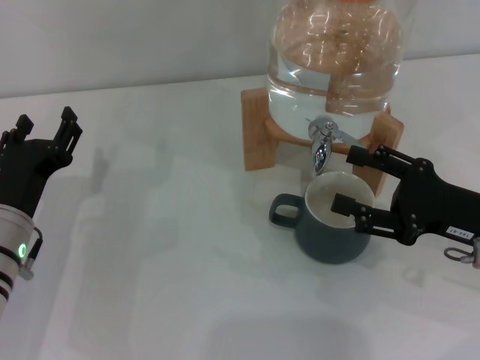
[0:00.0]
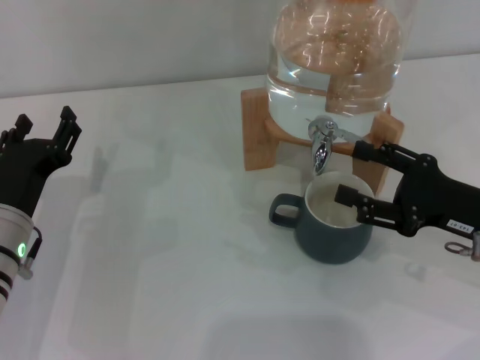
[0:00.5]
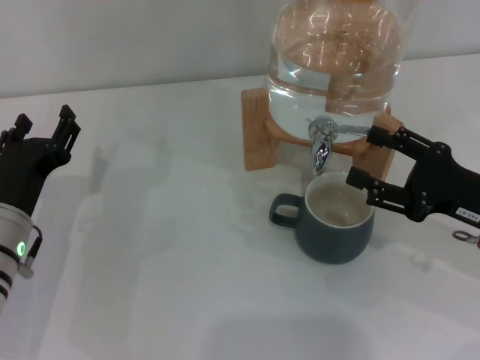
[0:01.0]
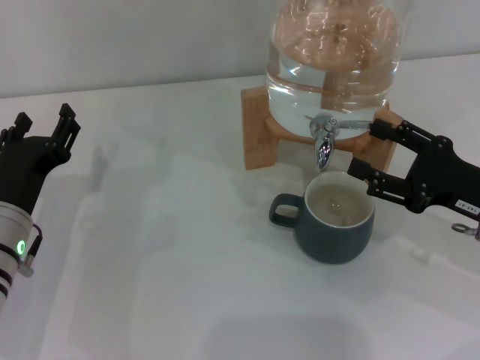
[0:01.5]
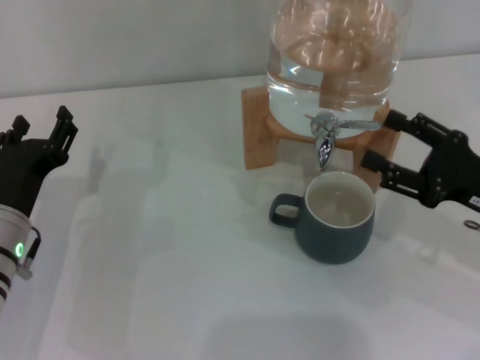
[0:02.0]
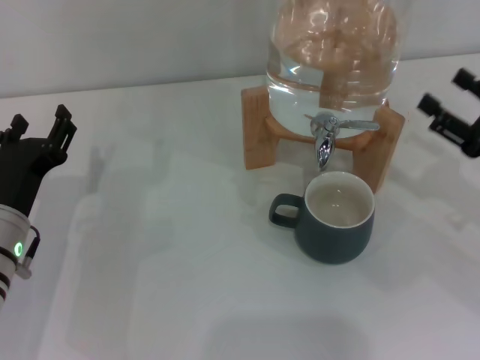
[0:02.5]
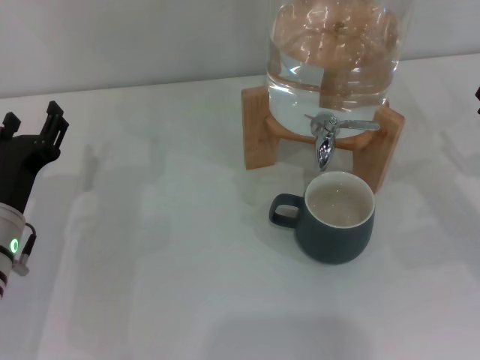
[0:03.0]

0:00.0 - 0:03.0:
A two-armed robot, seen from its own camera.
Task of the whole recording: the left gripper pick up the black cup and place it horizontally under the faucet, the right gripper turn on the faucet to fill the cup, and then turn off the faucet.
0:00.0 - 0:01.5: The grippers stay close to where they were, moving slightly.
0:01.5 - 0:03.0: The right gripper travels to the right by roughly 5 cm.
